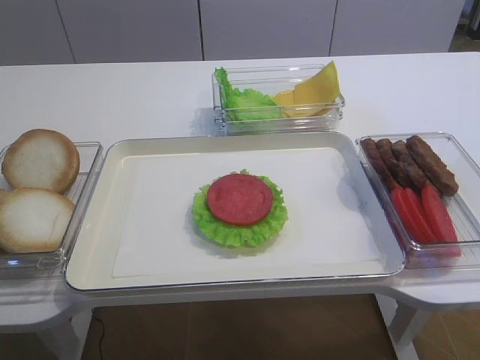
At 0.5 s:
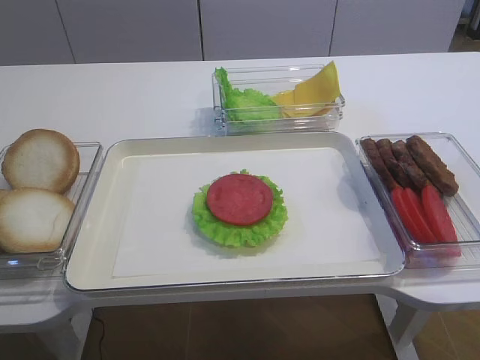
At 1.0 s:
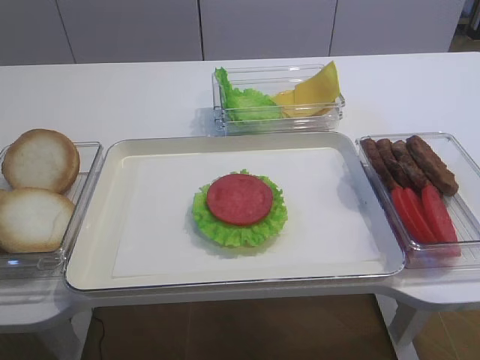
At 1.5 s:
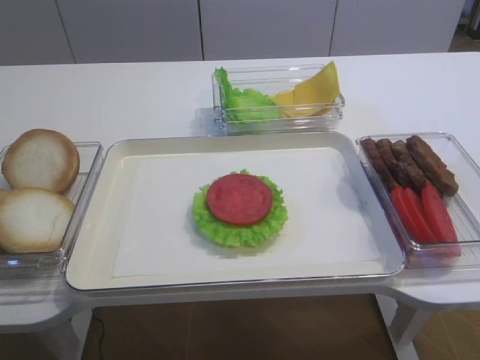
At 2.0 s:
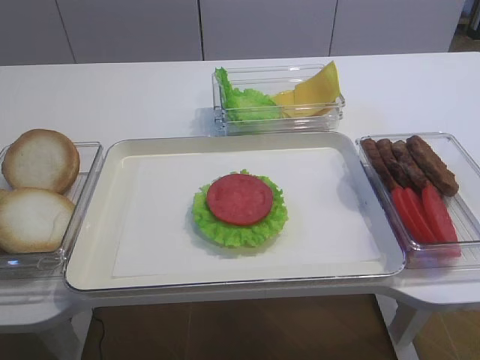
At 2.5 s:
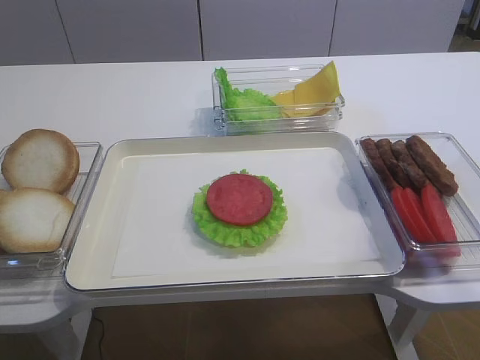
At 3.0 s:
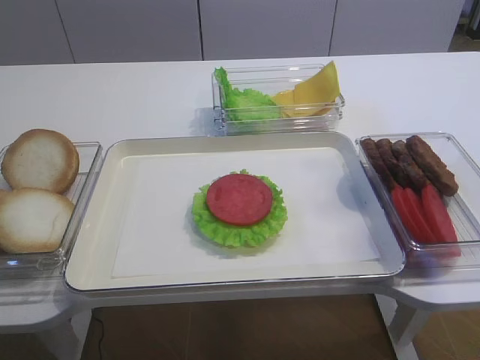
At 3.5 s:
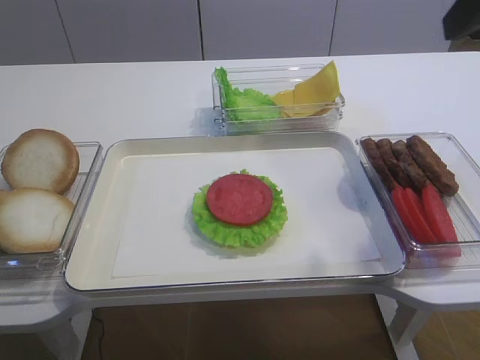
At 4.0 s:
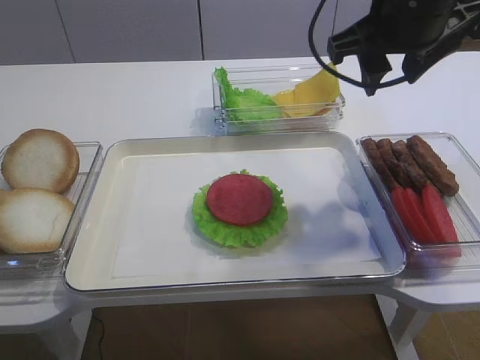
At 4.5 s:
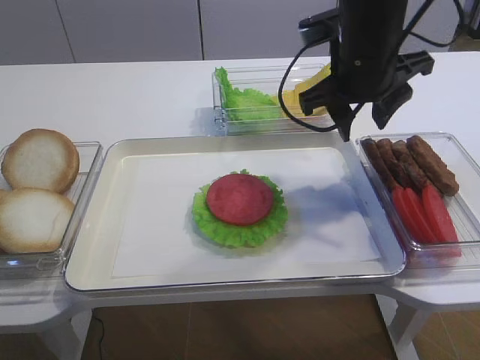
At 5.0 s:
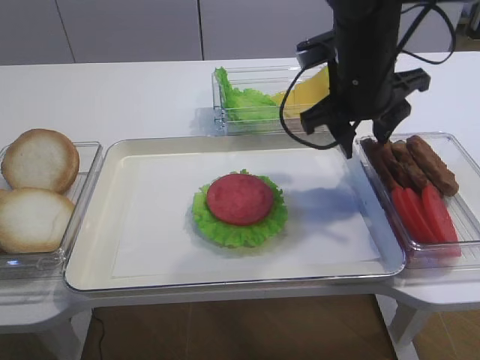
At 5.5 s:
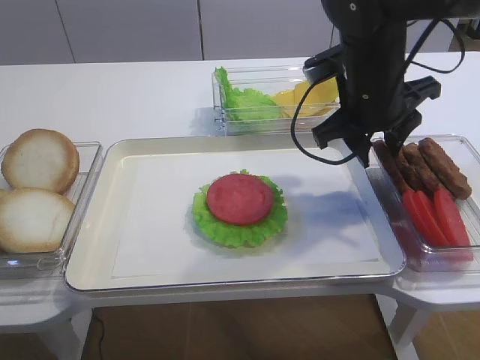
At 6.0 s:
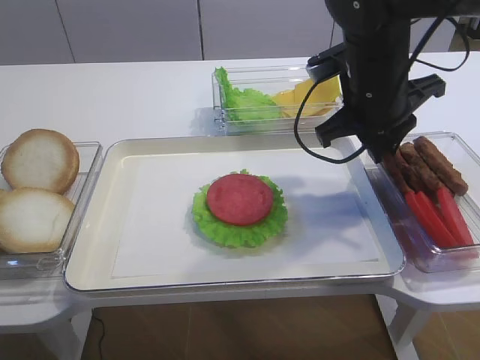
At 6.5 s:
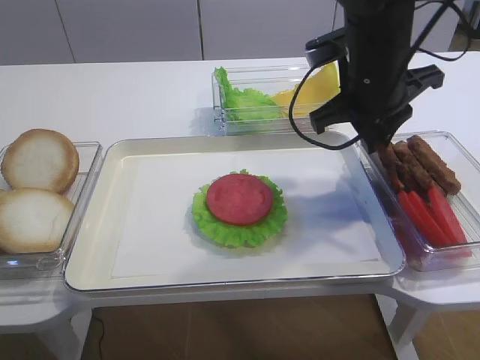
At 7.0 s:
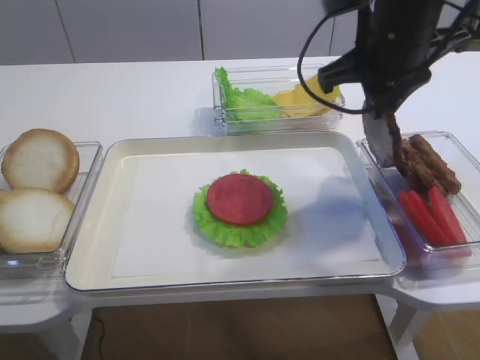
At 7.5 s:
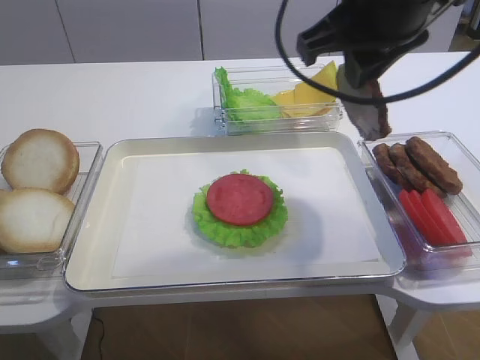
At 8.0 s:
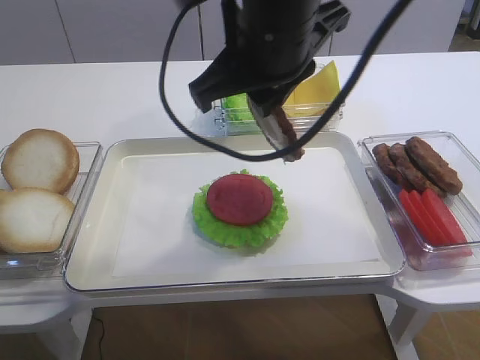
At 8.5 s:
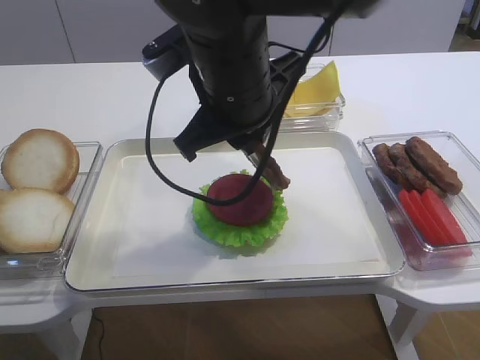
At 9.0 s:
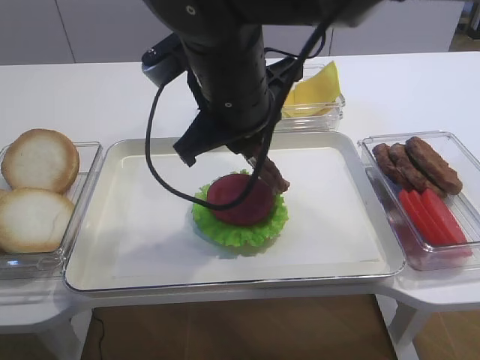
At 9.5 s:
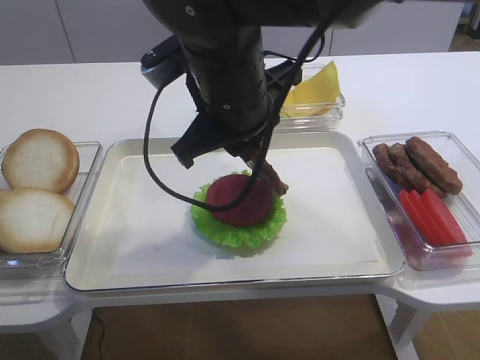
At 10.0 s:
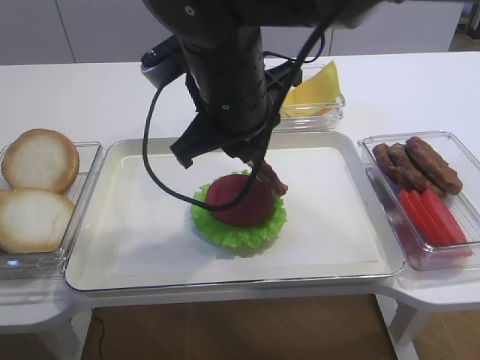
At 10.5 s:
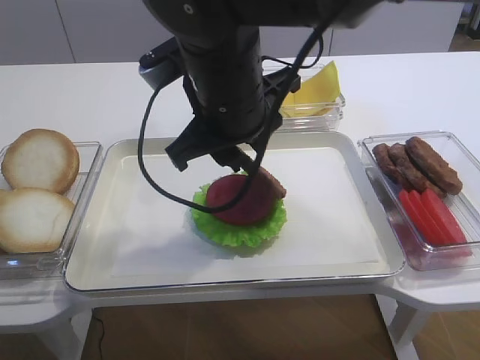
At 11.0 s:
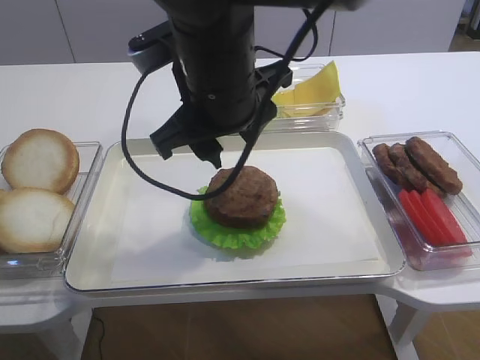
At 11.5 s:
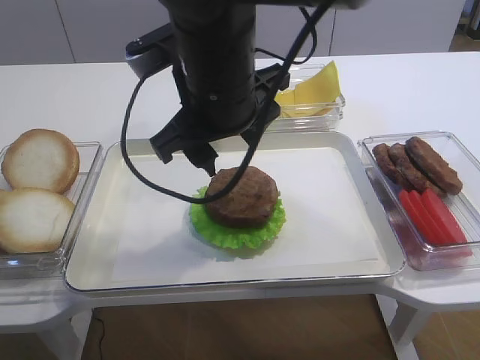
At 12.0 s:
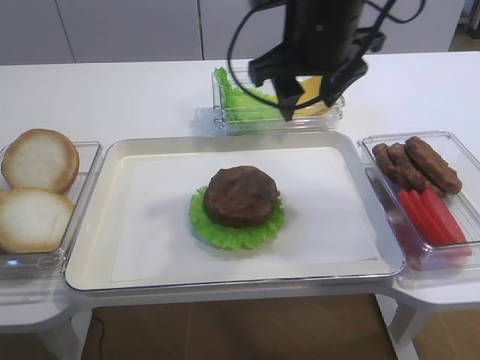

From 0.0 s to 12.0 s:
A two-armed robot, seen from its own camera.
Step, from 0.0 s to 6.5 s: Pick up the cutlet with the right gripper.
Step, from 7.5 s to 11.0 s: Place the cutlet on the tomato slice with the right gripper.
From 2.0 s to 4.0 s: The right gripper moves forward, about 30 cm.
From 4.0 s to 6.0 s: The right gripper heads downward, covering some 10 cm, and closes up.
From 6.0 s to 8.0 s: The right gripper is displaced to the left, upward and backward by some 15 cm.
From 8.0 s to 10.0 s: The right gripper moves downward, approximately 5 cm.
From 10.0 s to 12.0 s: The right gripper moves to the right and forward, roughly 10 cm, and opens up.

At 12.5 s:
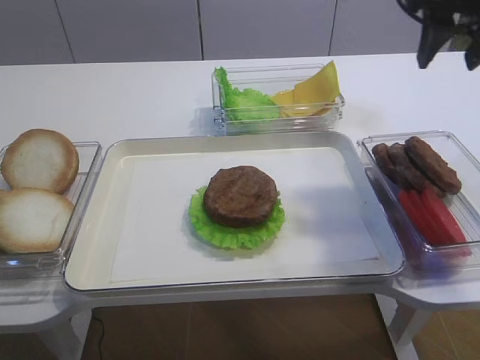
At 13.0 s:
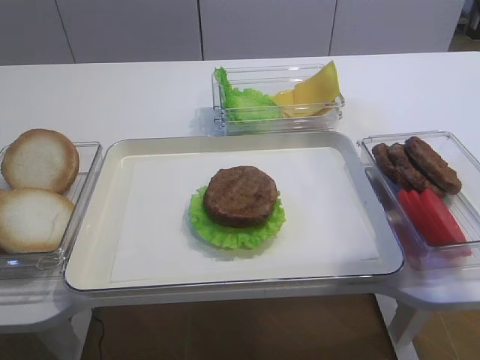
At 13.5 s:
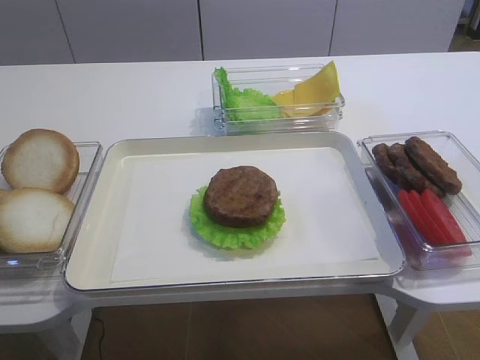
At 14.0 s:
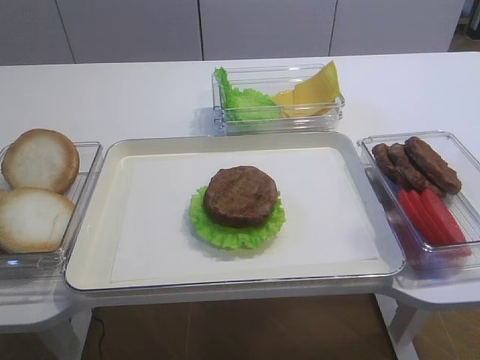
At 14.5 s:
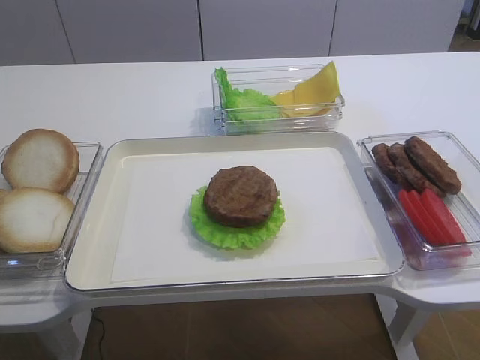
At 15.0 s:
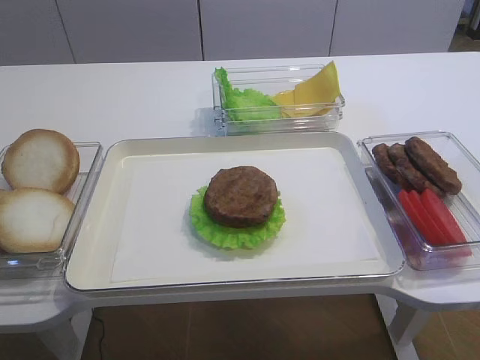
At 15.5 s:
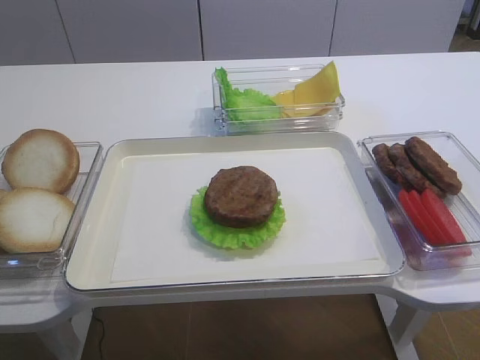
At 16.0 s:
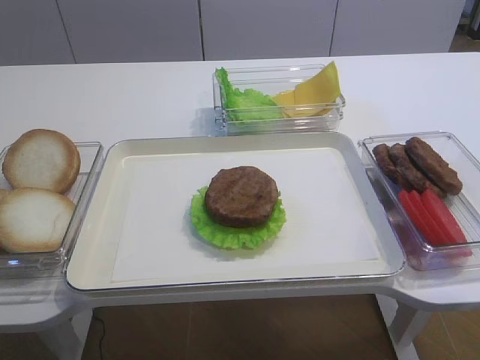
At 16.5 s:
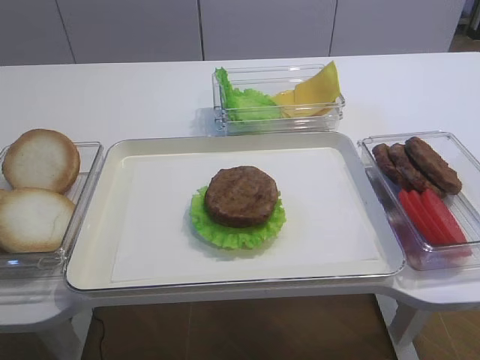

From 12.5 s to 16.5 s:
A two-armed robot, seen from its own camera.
From 12.5 s to 14.5 s: The right gripper is displaced backward by some 35 cm.

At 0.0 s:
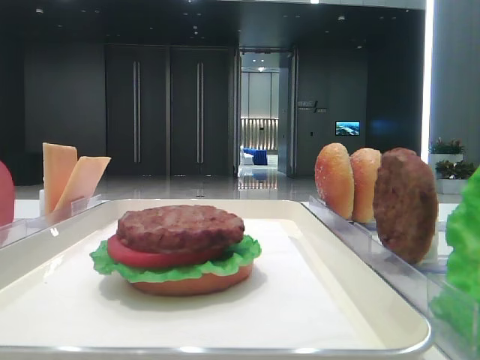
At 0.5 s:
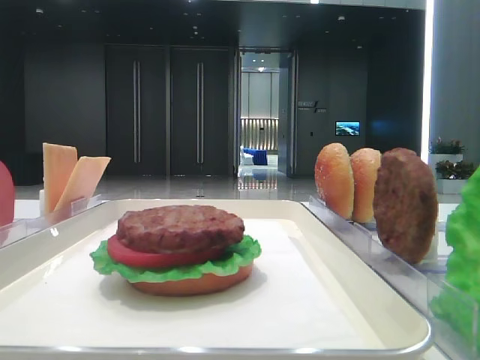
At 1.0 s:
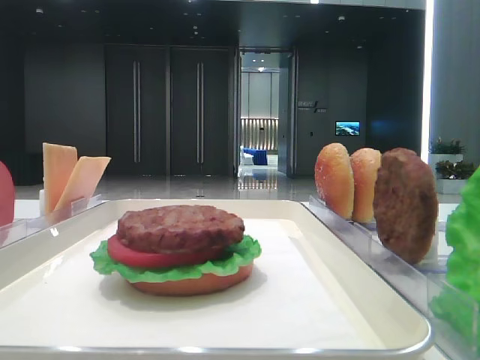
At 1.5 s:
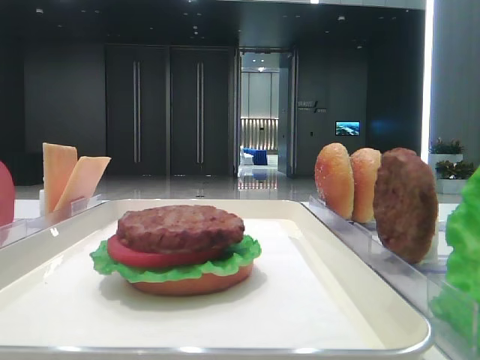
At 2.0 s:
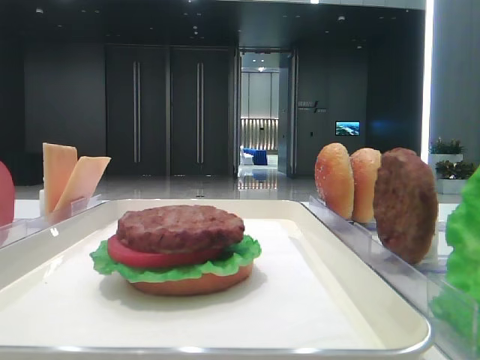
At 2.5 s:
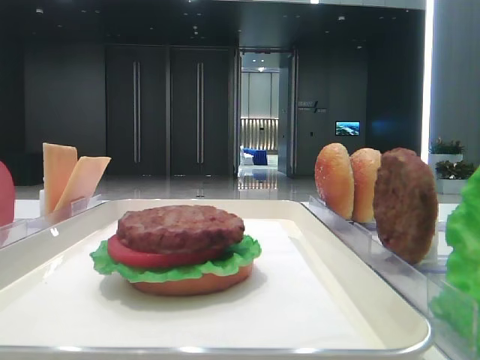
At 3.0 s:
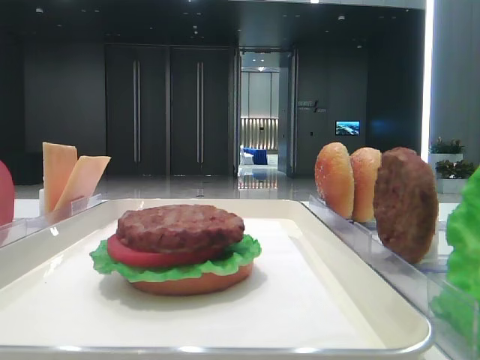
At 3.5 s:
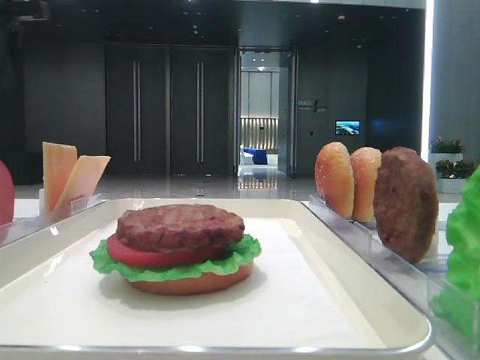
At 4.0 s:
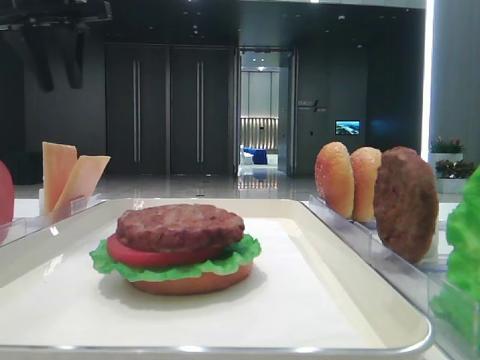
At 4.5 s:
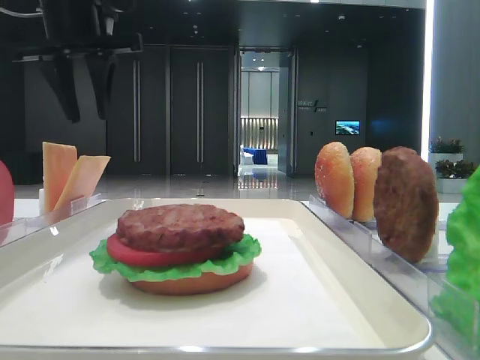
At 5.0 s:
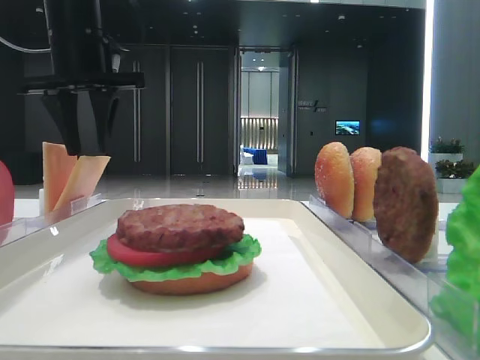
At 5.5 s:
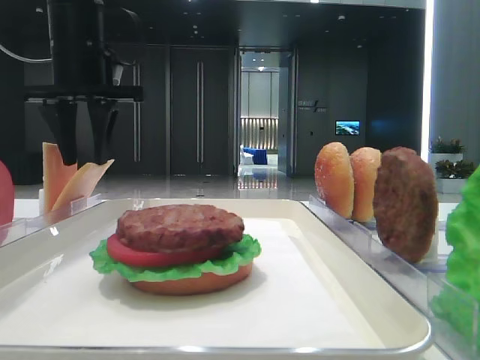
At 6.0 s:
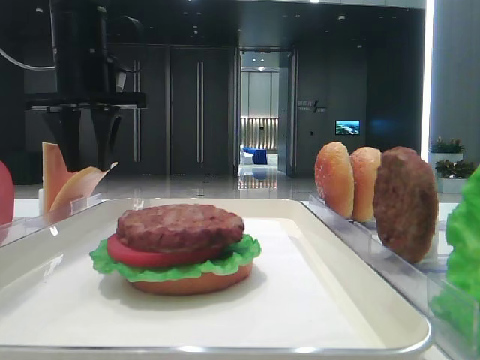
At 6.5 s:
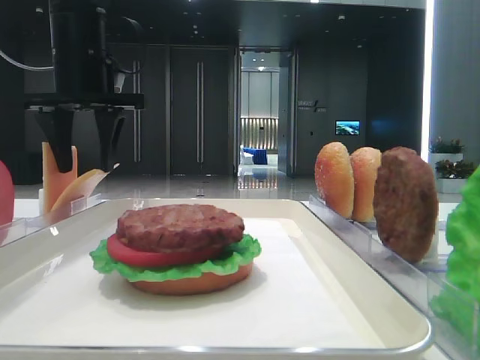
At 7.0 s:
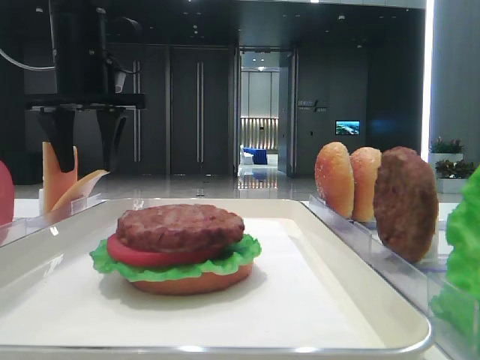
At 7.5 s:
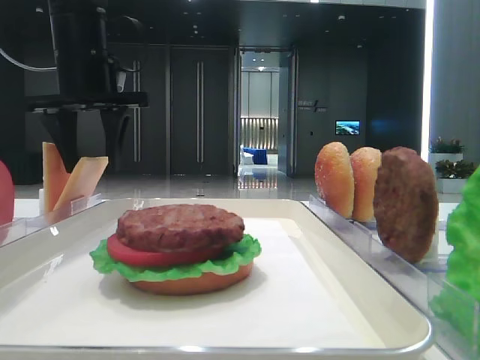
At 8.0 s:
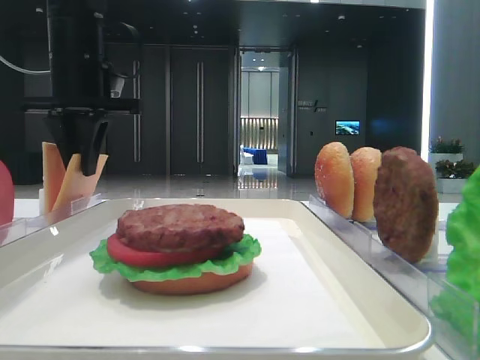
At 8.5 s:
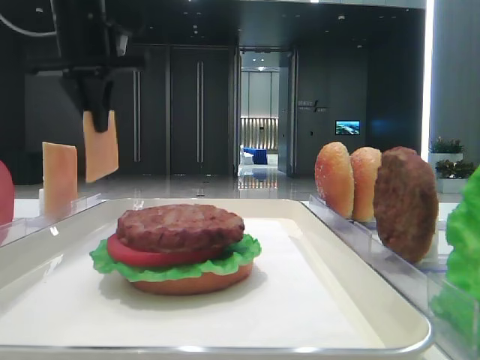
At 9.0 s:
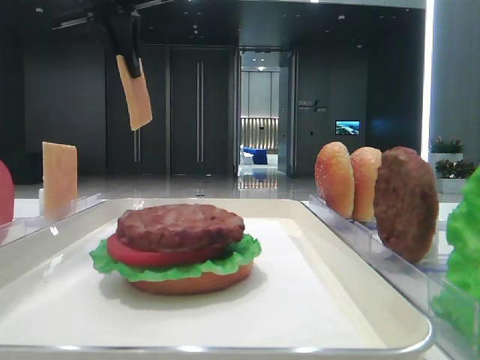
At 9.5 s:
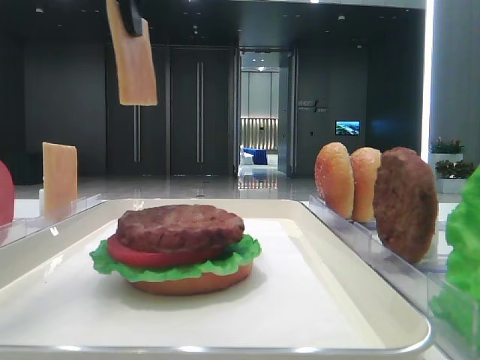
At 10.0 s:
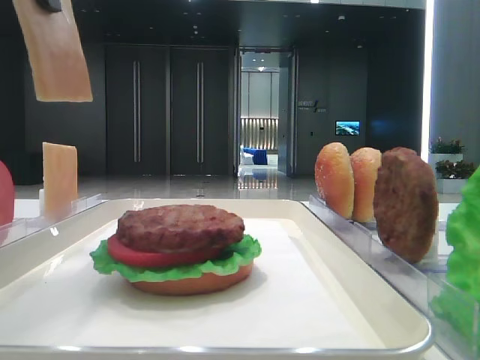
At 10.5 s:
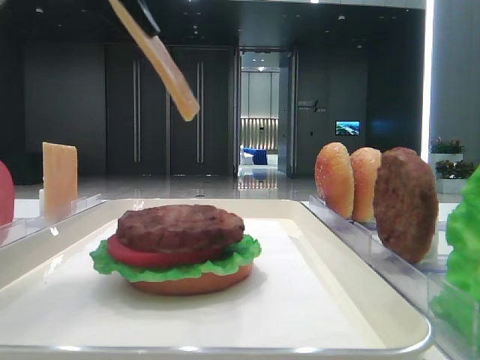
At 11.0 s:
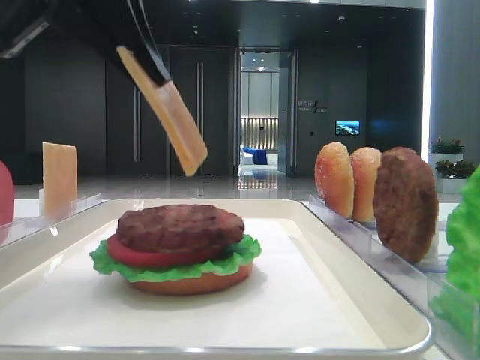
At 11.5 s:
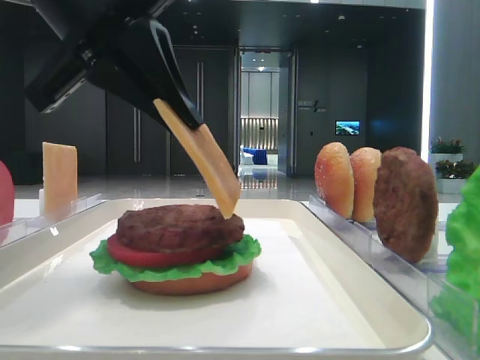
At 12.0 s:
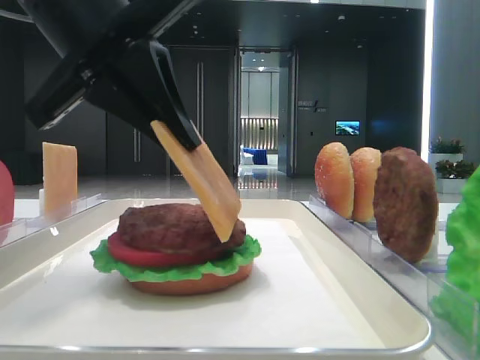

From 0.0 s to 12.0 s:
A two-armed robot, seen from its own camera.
Step, from 0.0 s to 8.0 s: Pick up the cheese slice with the left hand.
From 2.0 s to 4.0 s: The left gripper goes some 40 cm forward, and opens its fingers.
From 4.0 s to 6.0 s: The left gripper is displaced downward by some 10 cm.
From 6.0 s to 8.0 s: Both grippers stay put.
From 8.0 s to 10.0 s: The left gripper shifts approximately 25 cm backward and upward.
From 10.0 s to 12.0 s: The left gripper moves downward, approximately 10 cm.
